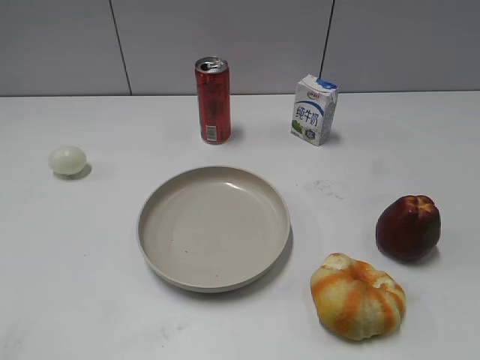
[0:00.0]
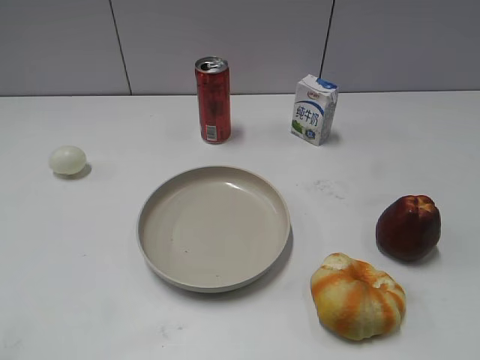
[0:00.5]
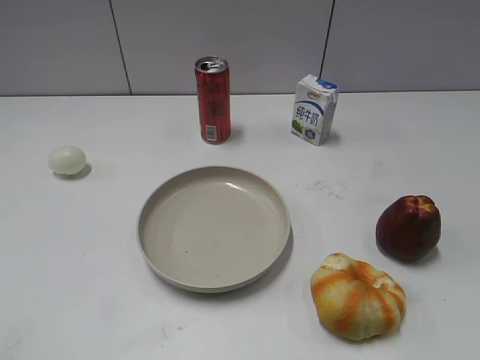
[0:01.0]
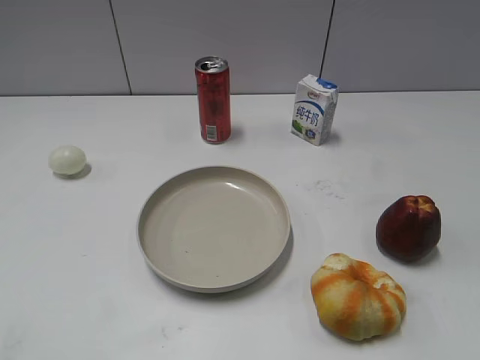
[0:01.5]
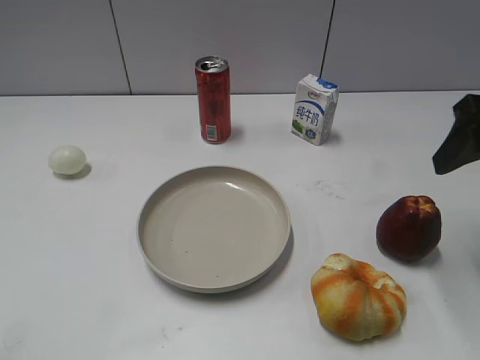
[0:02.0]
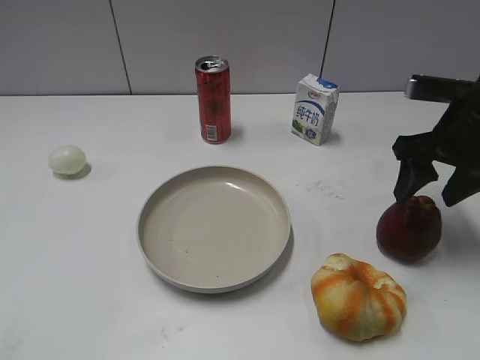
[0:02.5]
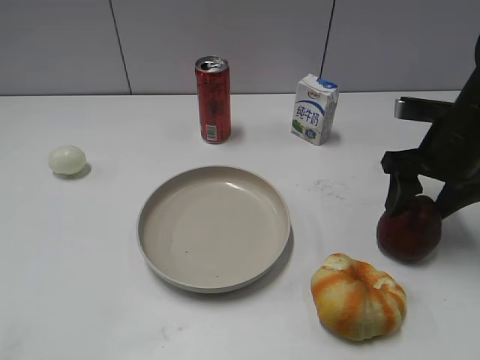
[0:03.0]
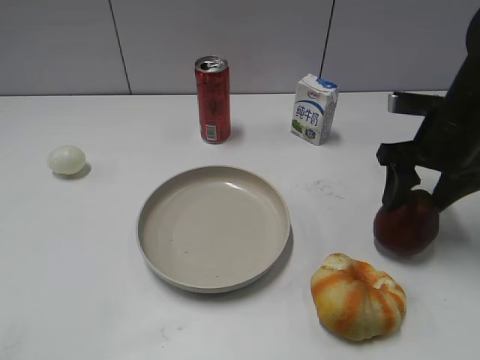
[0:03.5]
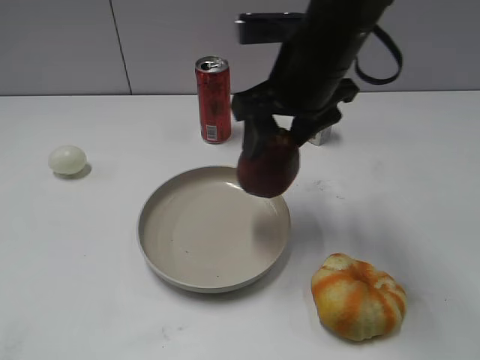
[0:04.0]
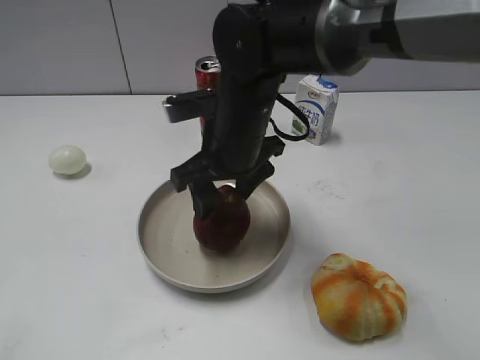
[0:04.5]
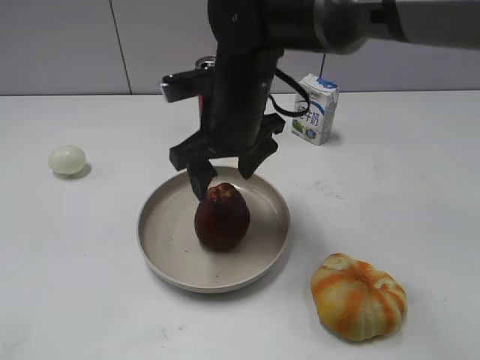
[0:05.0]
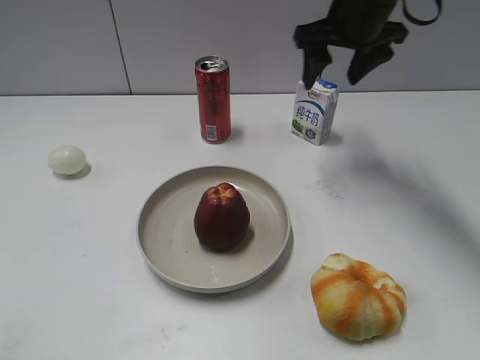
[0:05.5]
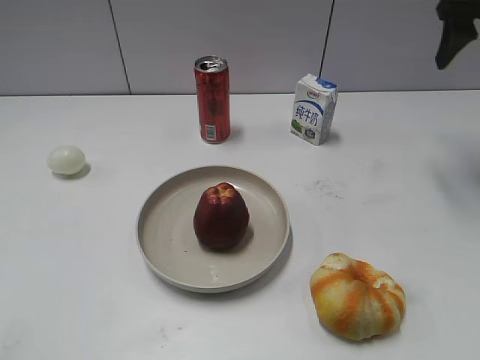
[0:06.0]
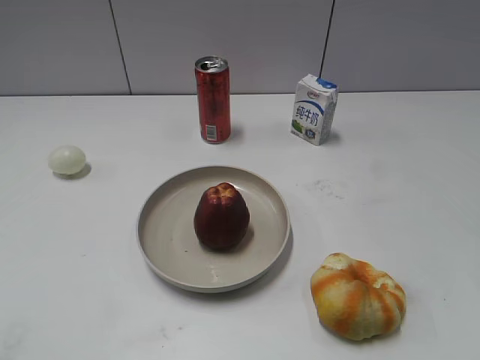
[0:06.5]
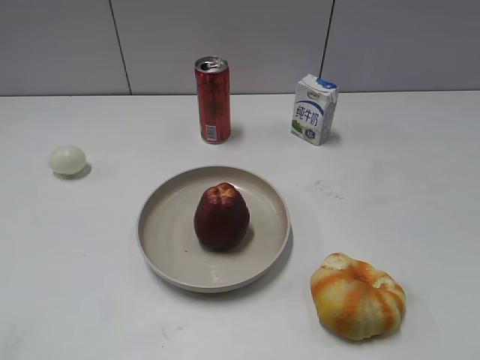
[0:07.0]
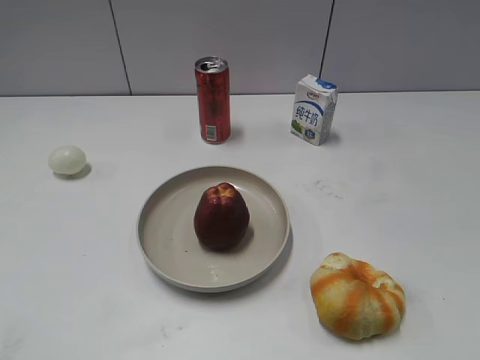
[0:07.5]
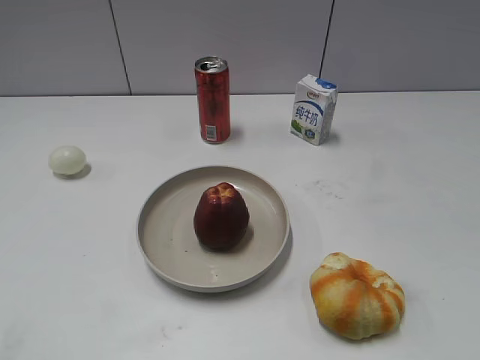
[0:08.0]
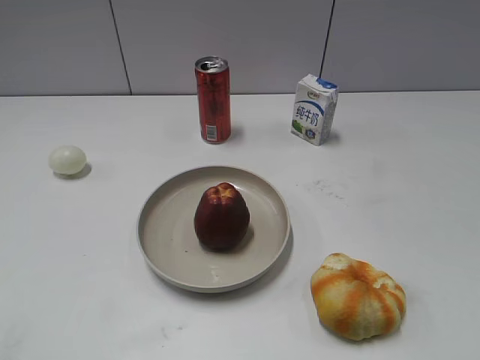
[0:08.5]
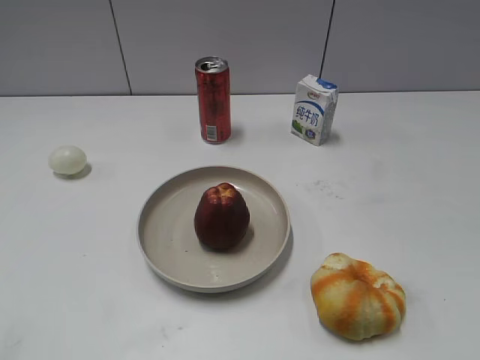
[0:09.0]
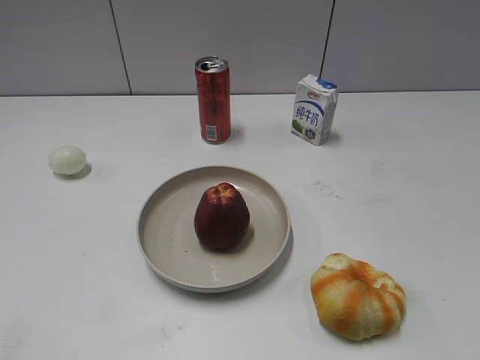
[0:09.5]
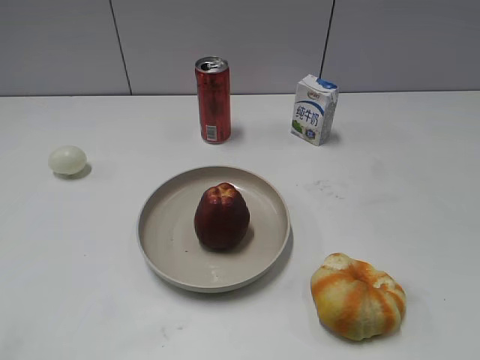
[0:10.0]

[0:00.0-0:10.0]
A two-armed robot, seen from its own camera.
Step, 0:01.0 to 0:03.0: Grasp the apple with right gripper.
Step, 0:03.5 to 0:05.0: Place the apple on the plate with right gripper.
0:02.0 to 0:04.0: The right gripper heads to the left, covering roughly 20 cm.
0:04.0 to 0:06.0: The right gripper travels to the right by roughly 25 cm.
0:06.0 to 0:08.0: The right gripper shifts roughly 40 cm backward.
0:08.0 to 0:10.0: Both grippers stay put.

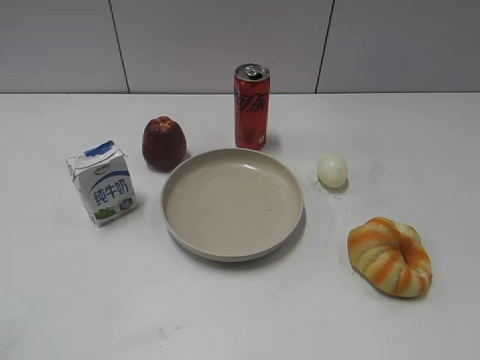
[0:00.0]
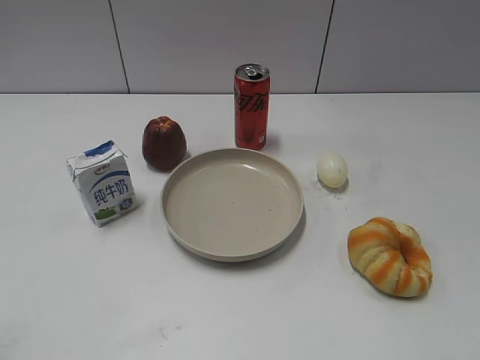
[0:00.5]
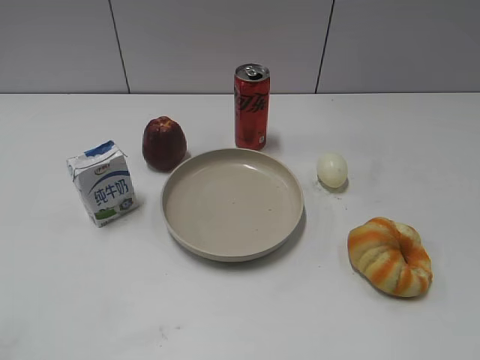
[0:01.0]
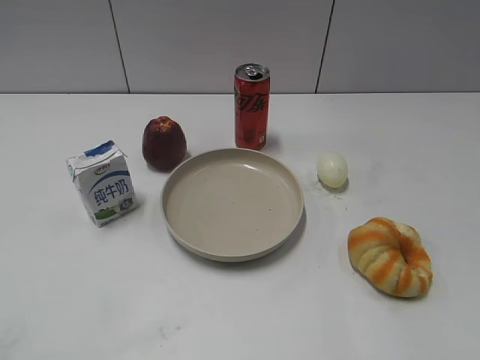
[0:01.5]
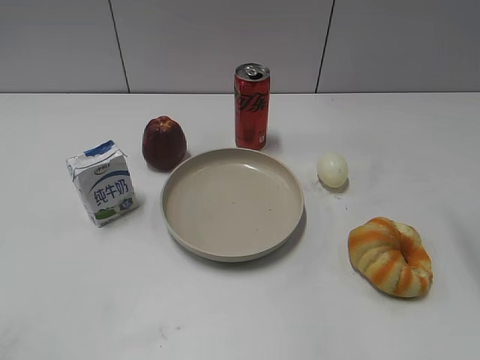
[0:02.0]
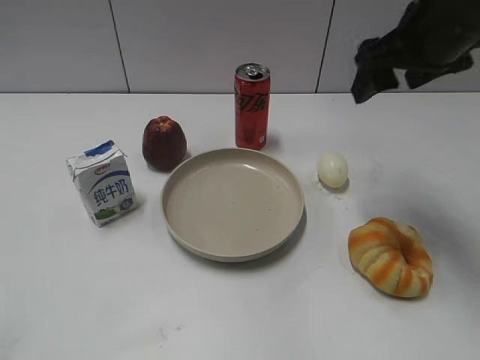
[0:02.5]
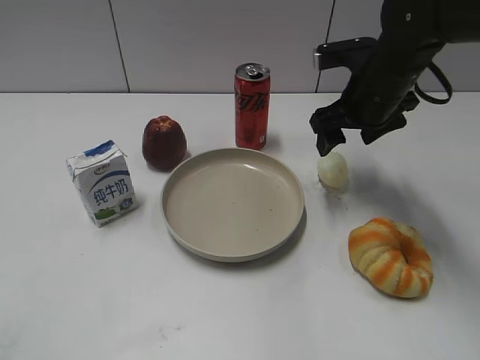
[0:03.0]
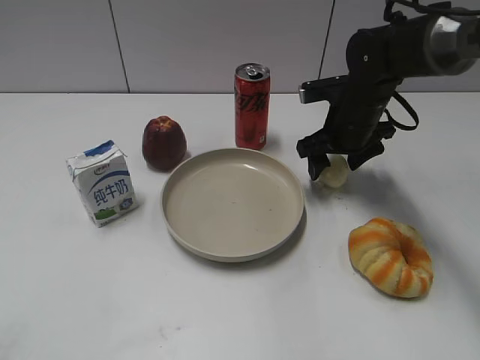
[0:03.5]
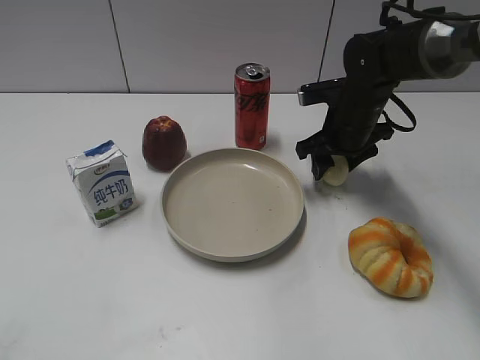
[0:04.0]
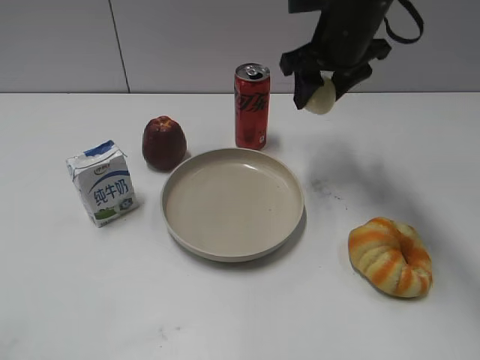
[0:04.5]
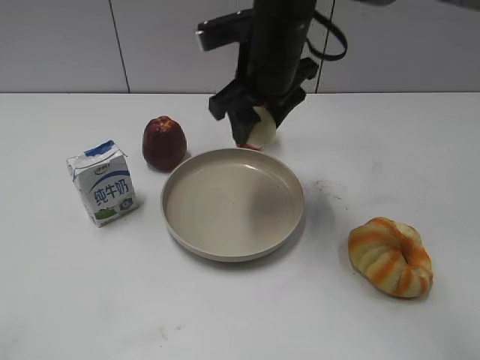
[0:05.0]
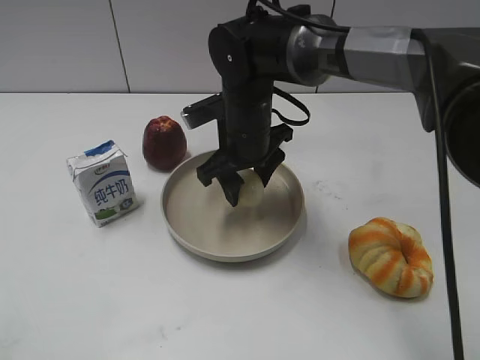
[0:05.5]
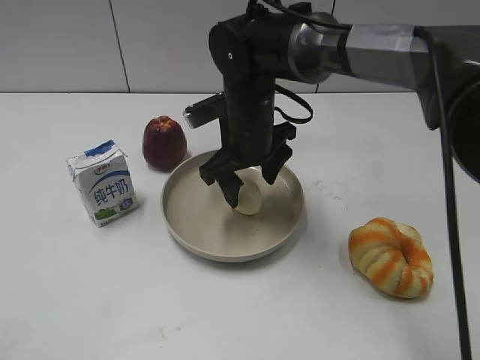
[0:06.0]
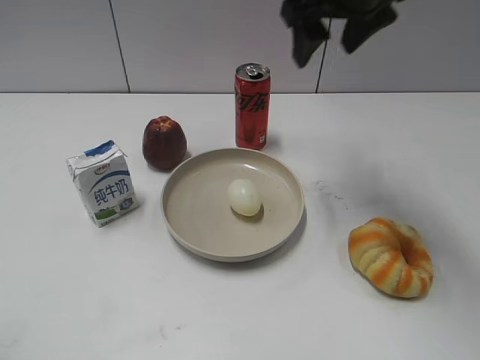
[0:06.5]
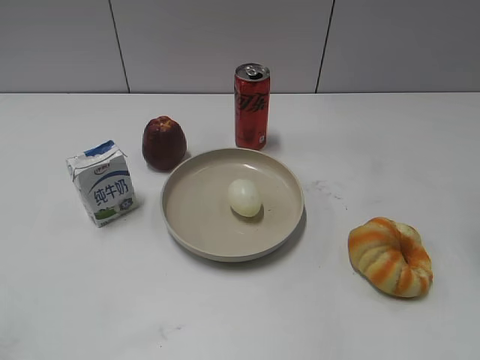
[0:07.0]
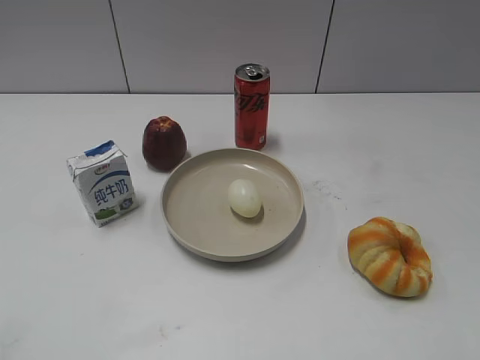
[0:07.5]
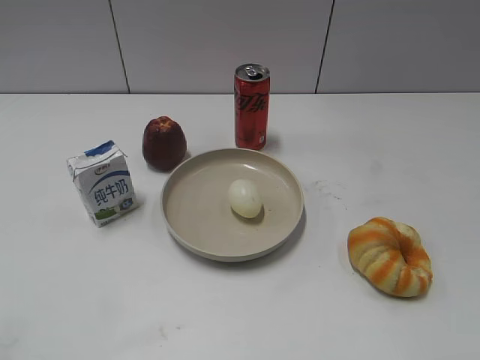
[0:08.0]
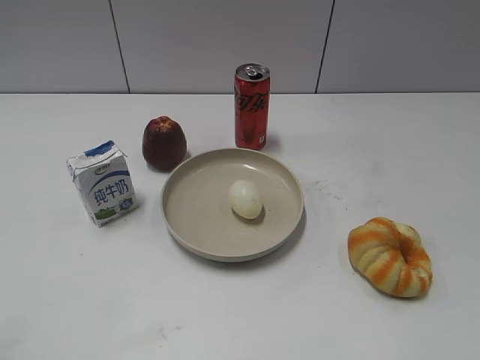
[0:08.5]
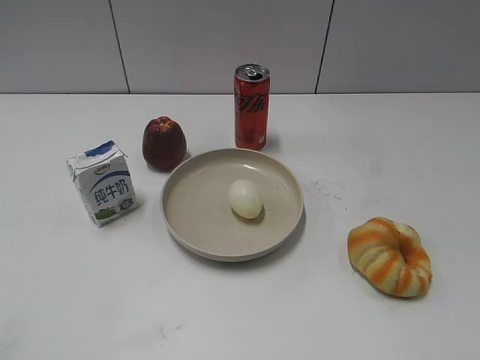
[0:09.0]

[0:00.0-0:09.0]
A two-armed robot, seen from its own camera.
Step, 0:01.0 to 0:03.5: Grasp the egg with right gripper.
Step, 0:04.0 to 0:06.0: Place the egg on the plate with right gripper.
0:02.0 to 0:04.5: The right gripper goes approximately 25 cm forward, to the left and downward, and closes up.
0:04.5 to 0:07.0: The right gripper goes approximately 25 cm to the right, backward and upward, and opens its fingers.

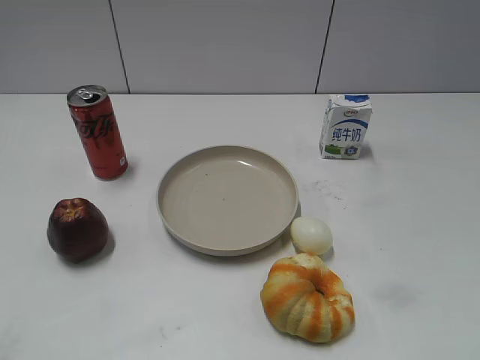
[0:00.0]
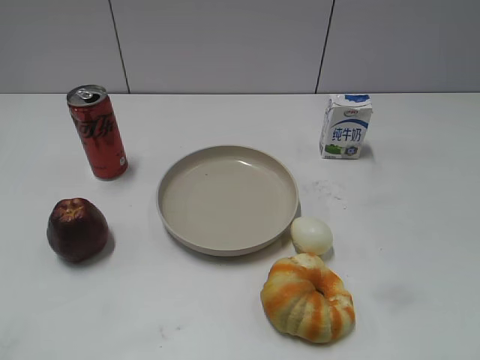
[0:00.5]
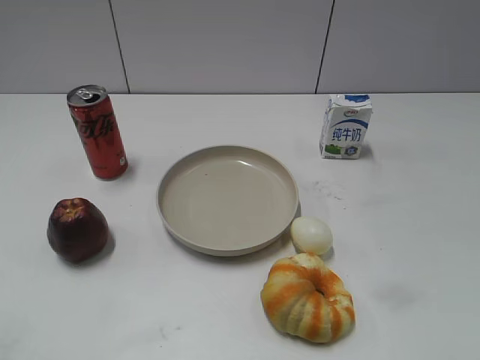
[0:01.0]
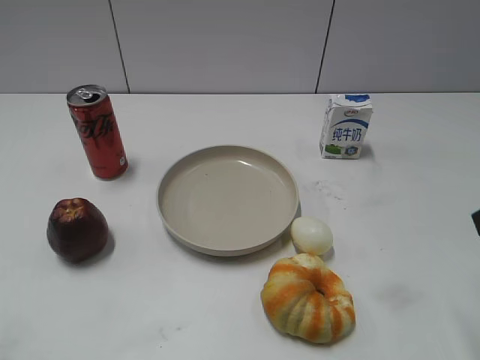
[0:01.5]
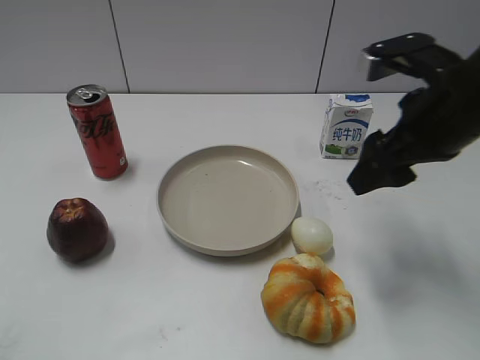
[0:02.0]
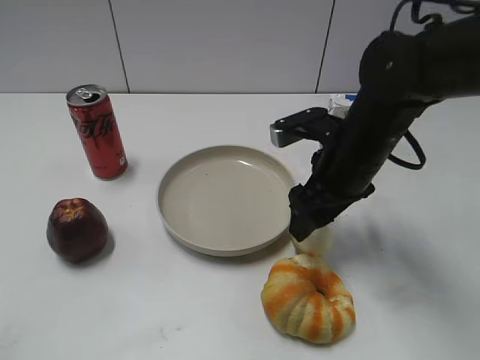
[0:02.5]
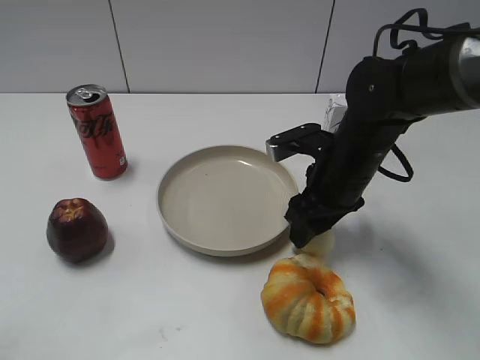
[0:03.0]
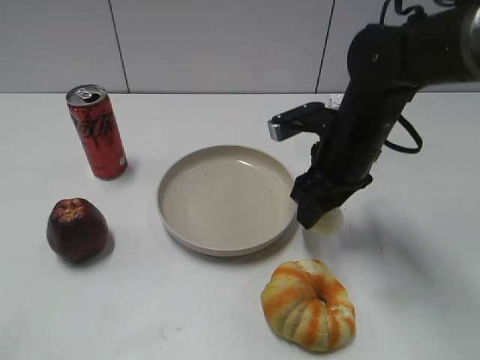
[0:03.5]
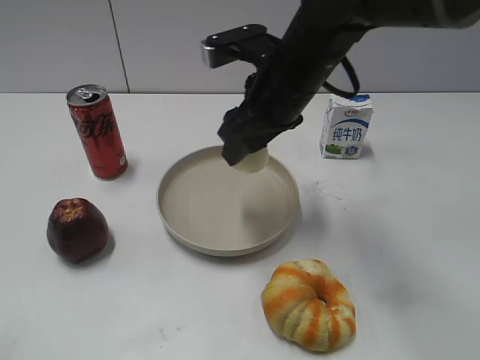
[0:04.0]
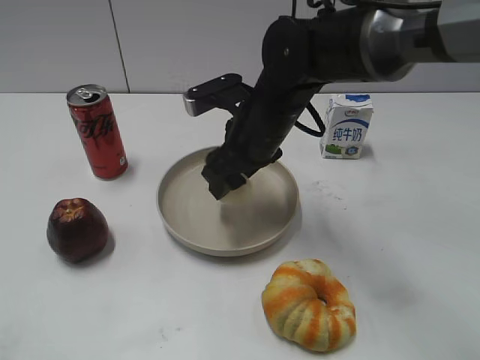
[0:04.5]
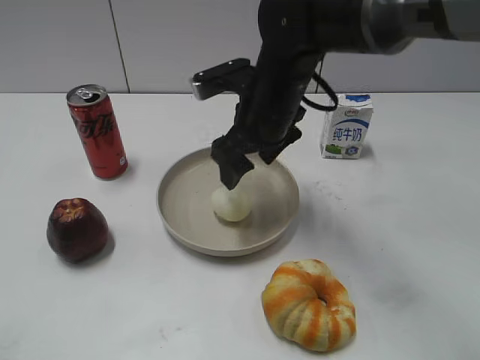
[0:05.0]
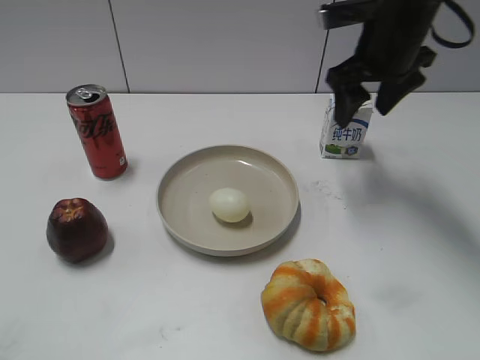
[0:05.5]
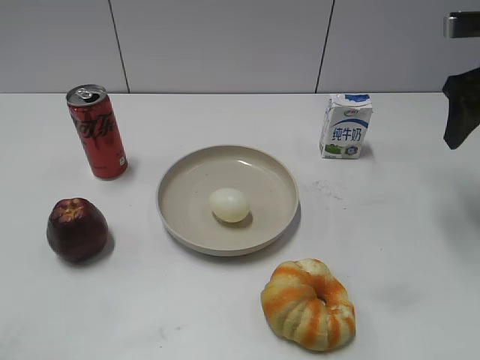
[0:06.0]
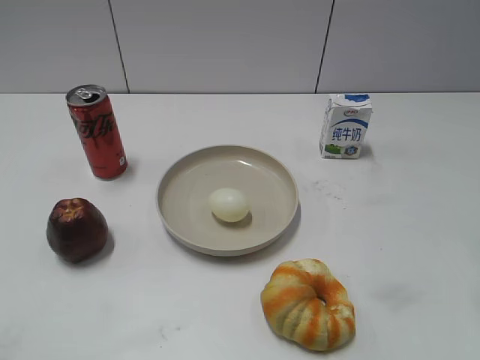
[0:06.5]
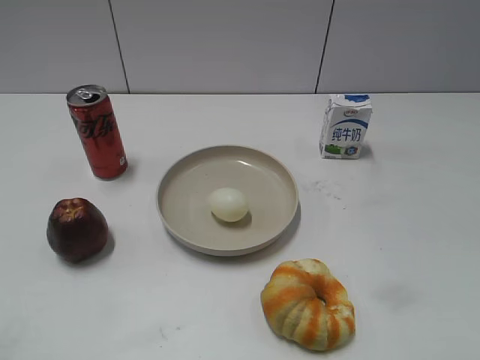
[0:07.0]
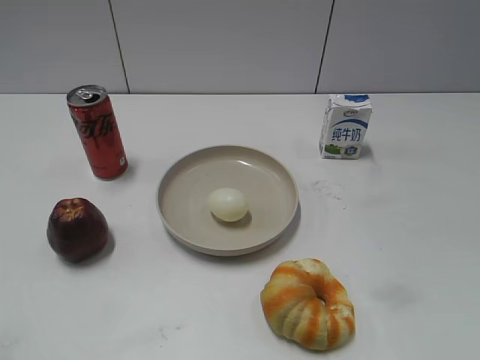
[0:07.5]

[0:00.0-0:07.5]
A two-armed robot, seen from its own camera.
Step, 0:01.0 to 0:03.0: Grasp the egg with right gripper.
Step, 0:03.5 to 0:05.0: Place the egg on the plate with right gripper.
0:02.0 to 0:04.0: The right gripper moves to the left and forward, some 15 cm, and closes.
0:04.0 to 0:05.5: The right gripper shifts roughly 15 cm to the right and forward, and opens.
0:05.5 to 0:07.5: The right gripper shifts some 40 cm backward.
